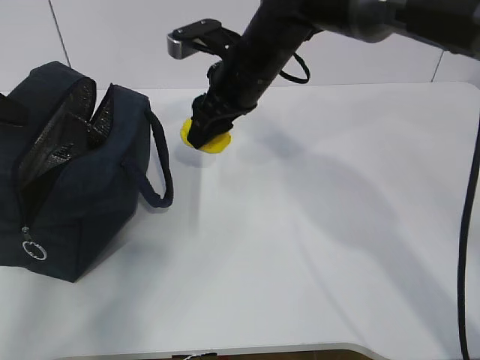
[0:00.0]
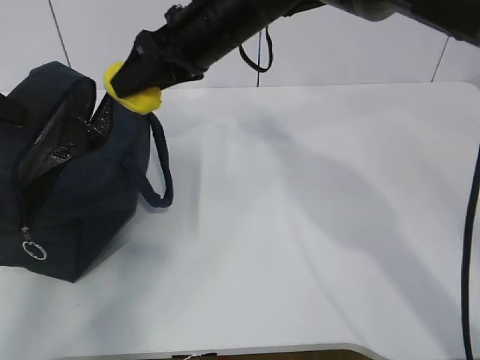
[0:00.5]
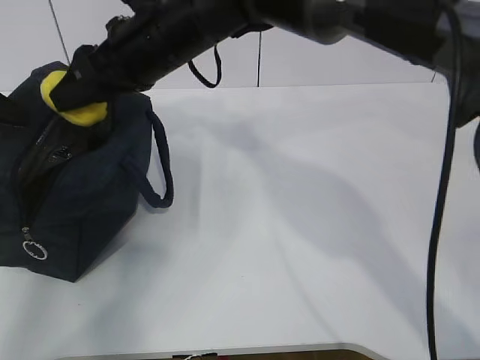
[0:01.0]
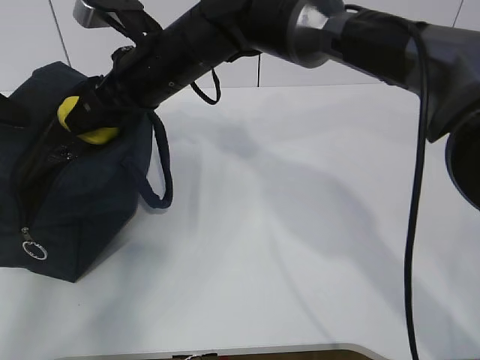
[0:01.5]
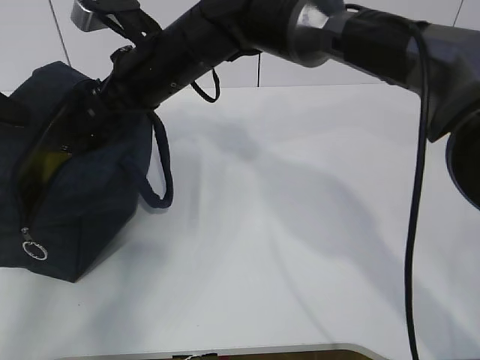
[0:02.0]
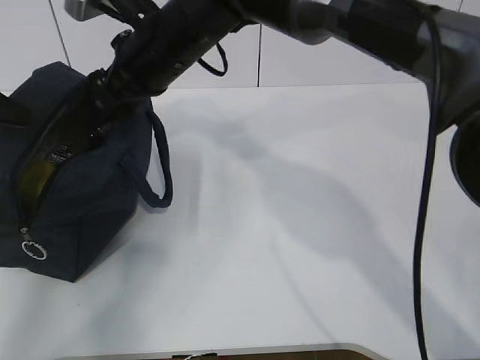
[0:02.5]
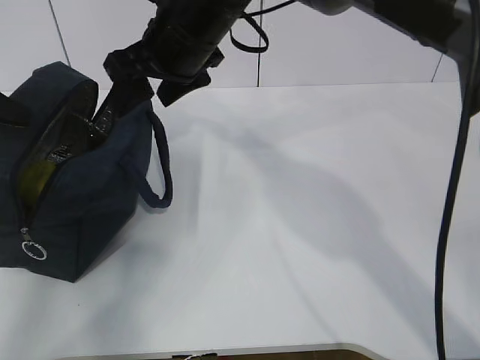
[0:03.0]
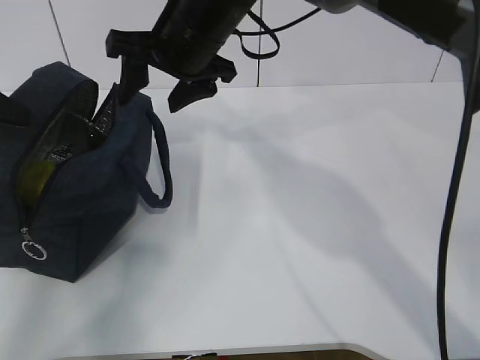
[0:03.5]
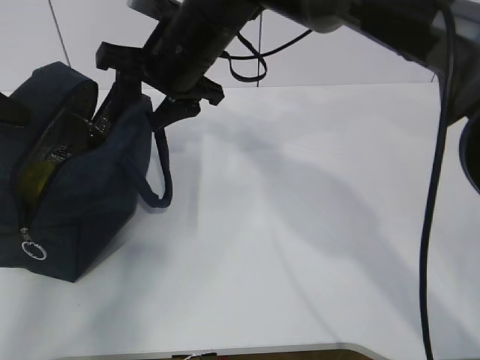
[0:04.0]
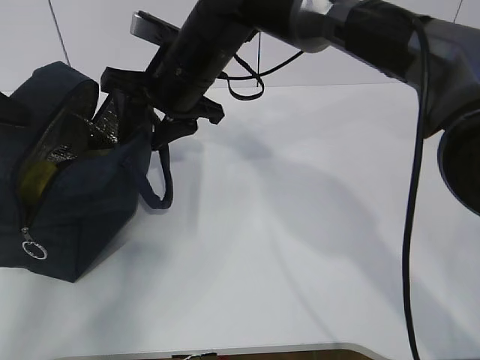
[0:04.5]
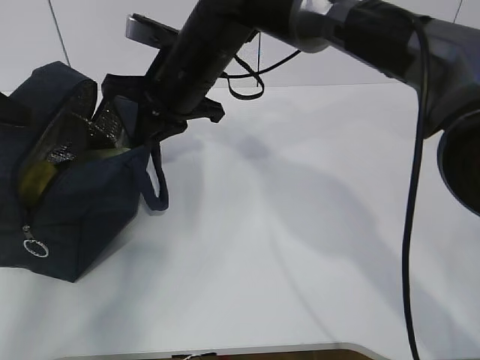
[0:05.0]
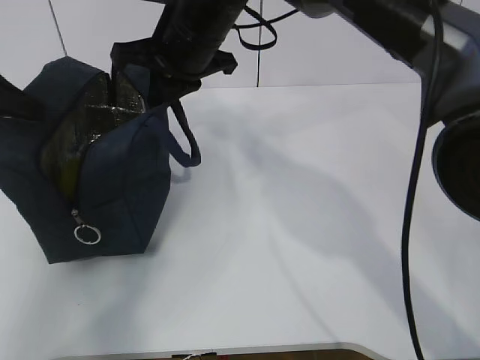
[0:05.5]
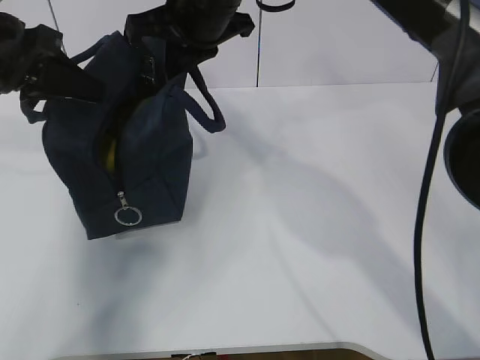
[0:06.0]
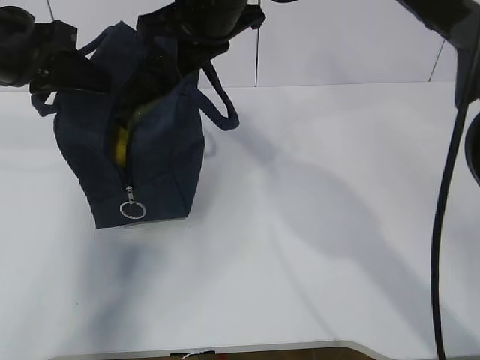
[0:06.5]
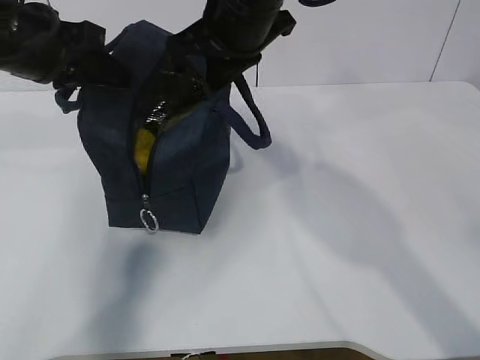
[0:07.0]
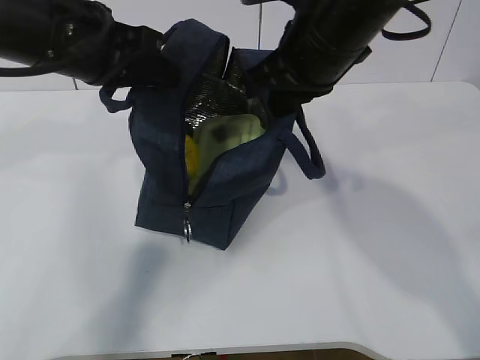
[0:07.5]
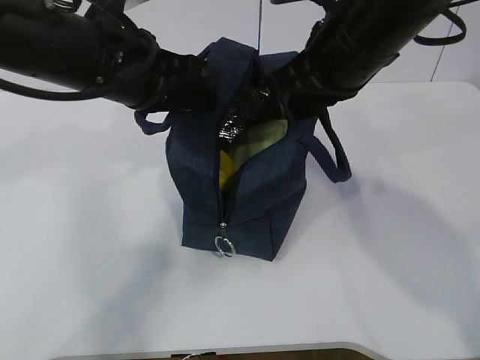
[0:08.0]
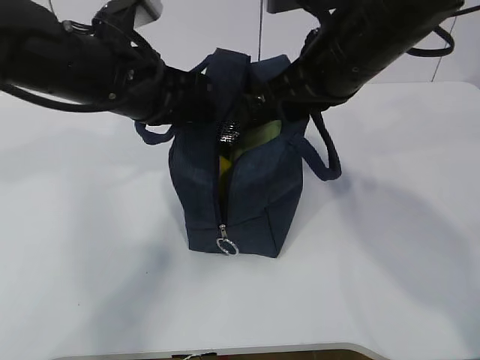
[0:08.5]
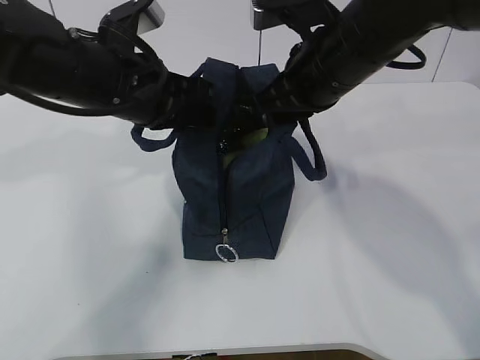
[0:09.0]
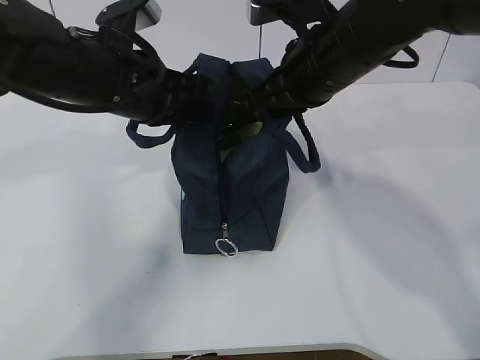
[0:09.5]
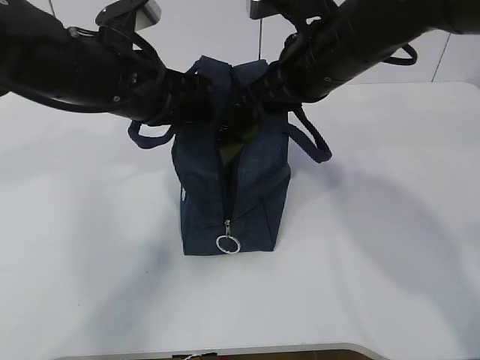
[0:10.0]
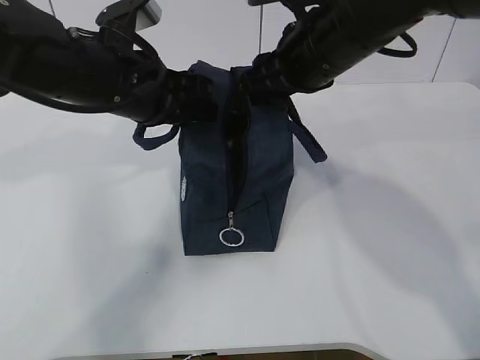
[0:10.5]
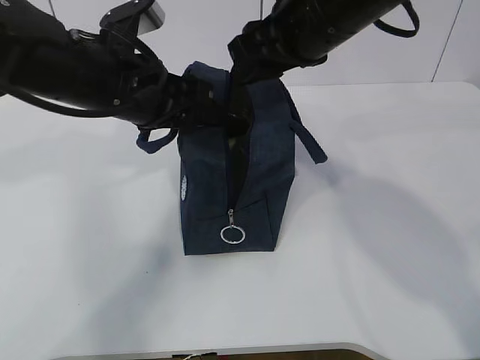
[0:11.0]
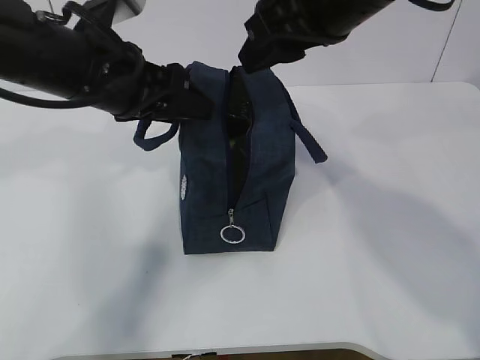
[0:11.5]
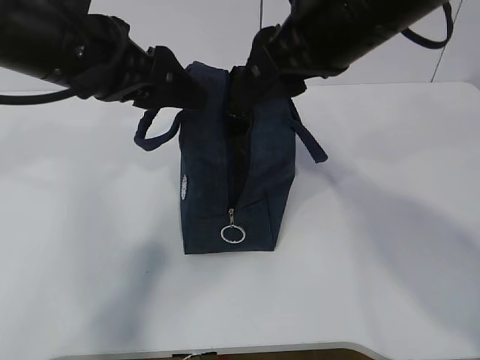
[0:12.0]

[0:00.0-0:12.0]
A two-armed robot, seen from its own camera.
Step, 0.0 to 2.0 s: Move the lunch bag to the right.
0.0 to 2.0 s: The right gripper heads to the left, covering some 10 cm.
4.0 to 6.0 s: The right gripper changes place by roughly 5 cm, and closes up. The left gripper is displaced to the right by some 10 cm.
6.0 to 8.0 s: The right gripper is displaced to the right and backward by approximately 15 cm, while the left gripper moves to the right, some 15 cm.
8.0 to 10.0 s: The grippers stay close to where they were, moving slightly.
10.0 to 12.0 s: The left gripper changes place by some 5 cm, and opens its fingers; the right gripper is displaced upward and backward by some 10 cm, and opens up.

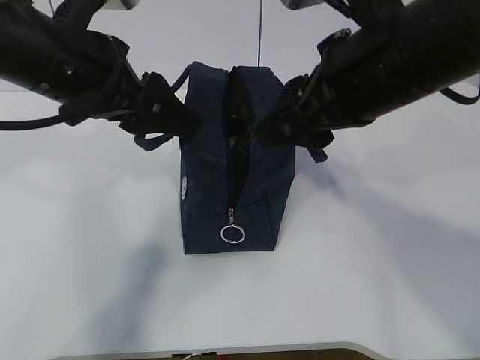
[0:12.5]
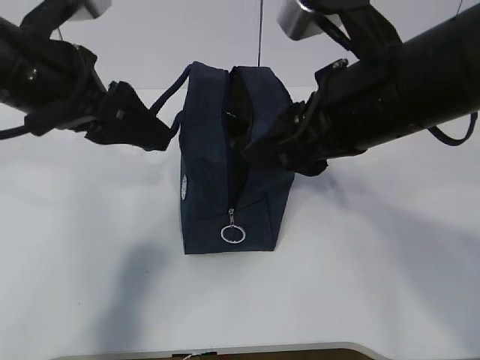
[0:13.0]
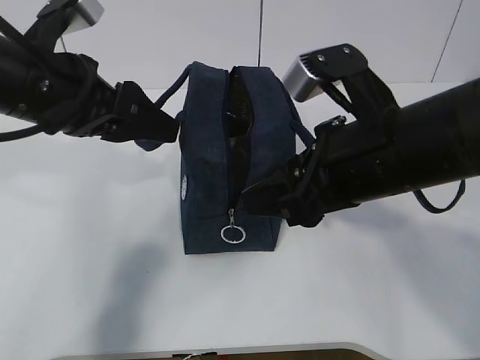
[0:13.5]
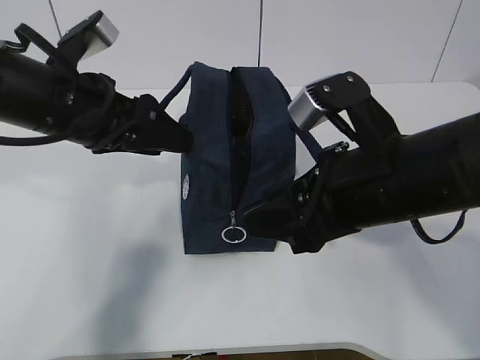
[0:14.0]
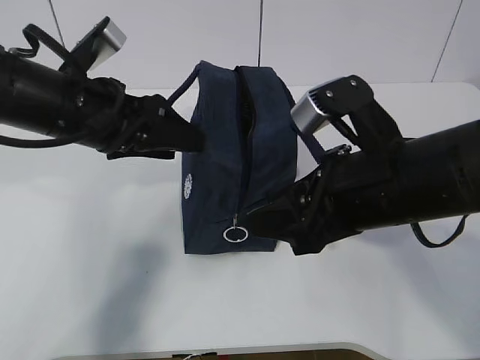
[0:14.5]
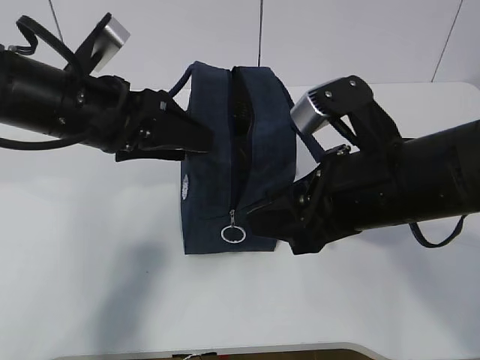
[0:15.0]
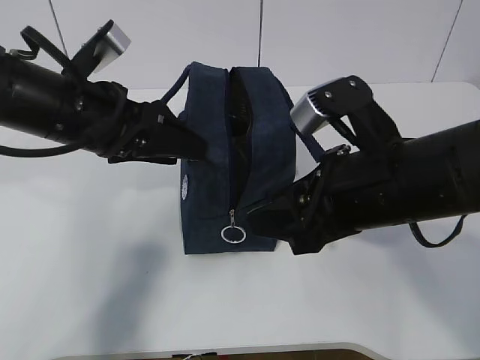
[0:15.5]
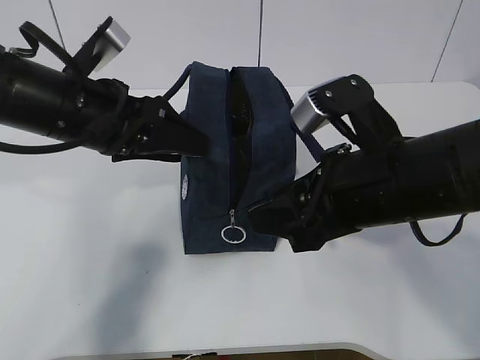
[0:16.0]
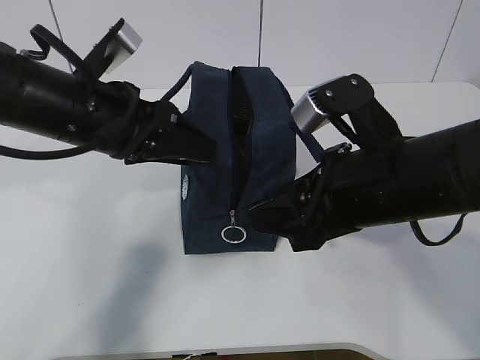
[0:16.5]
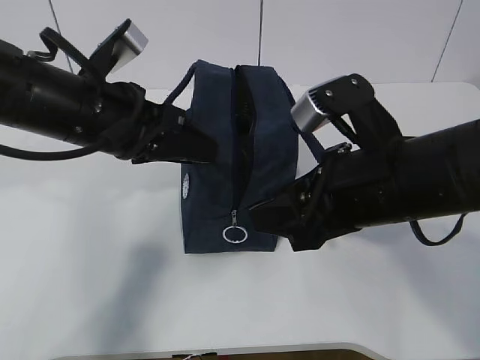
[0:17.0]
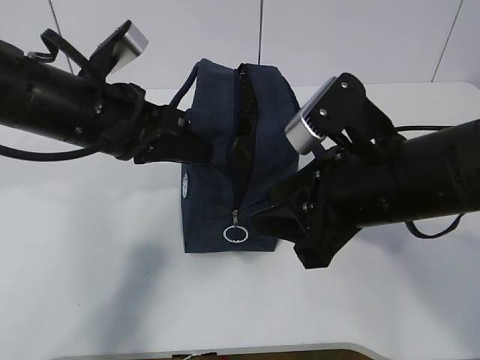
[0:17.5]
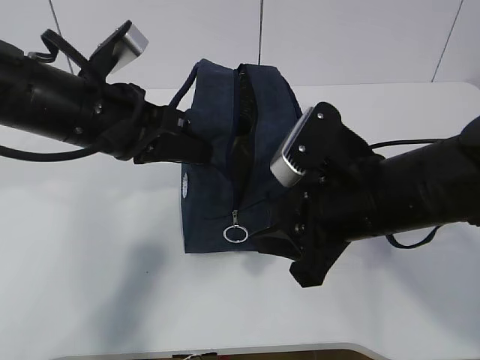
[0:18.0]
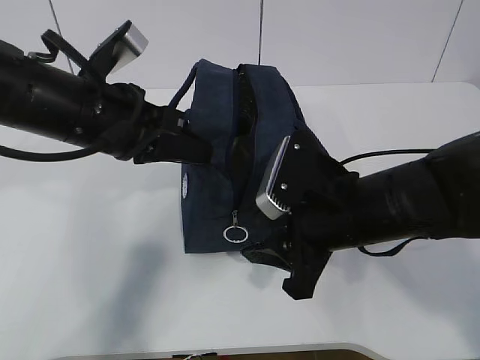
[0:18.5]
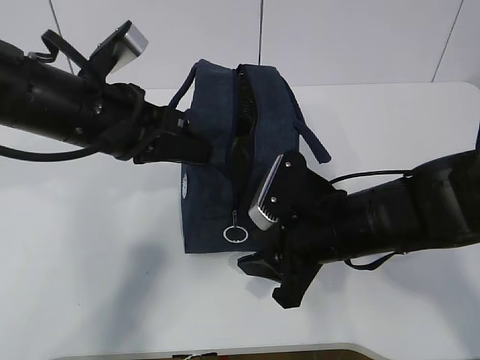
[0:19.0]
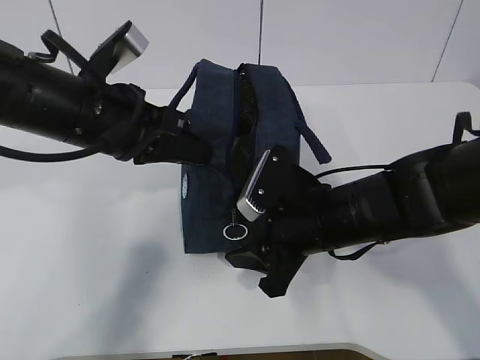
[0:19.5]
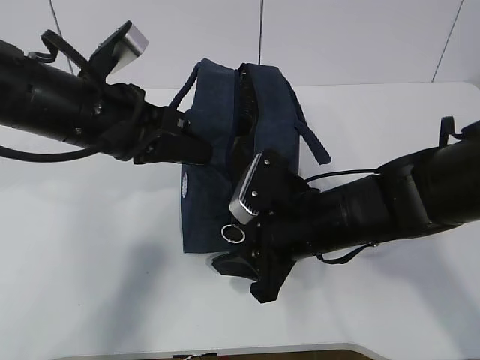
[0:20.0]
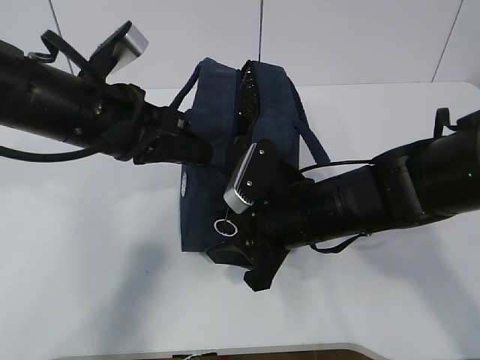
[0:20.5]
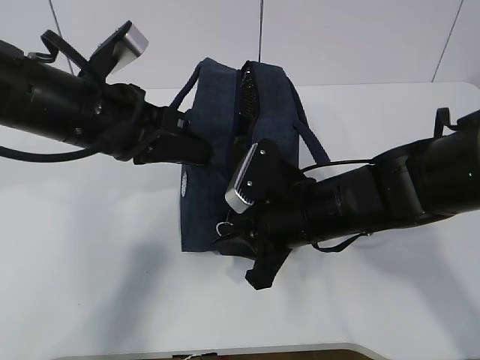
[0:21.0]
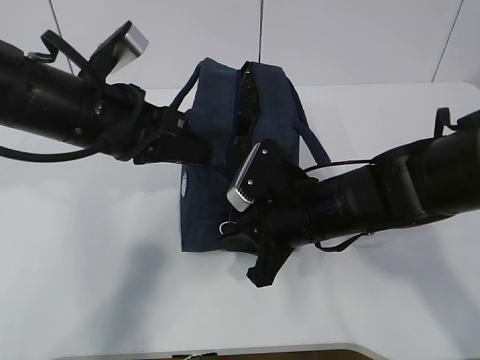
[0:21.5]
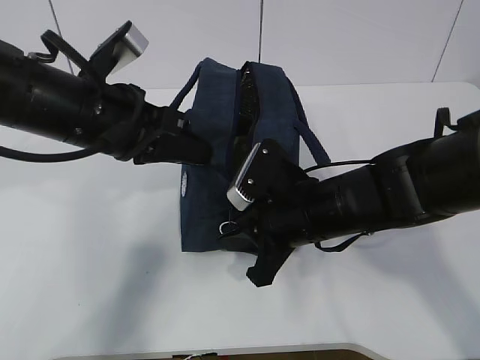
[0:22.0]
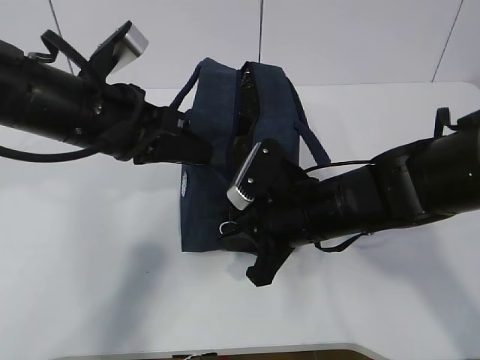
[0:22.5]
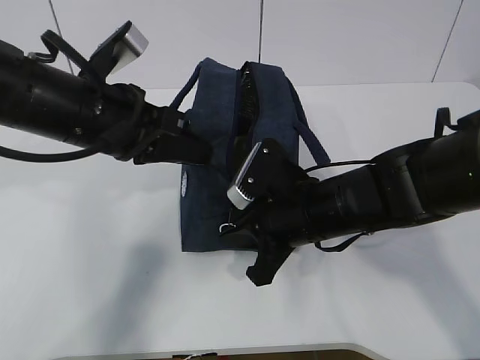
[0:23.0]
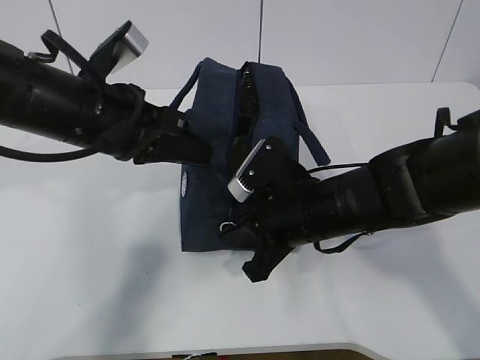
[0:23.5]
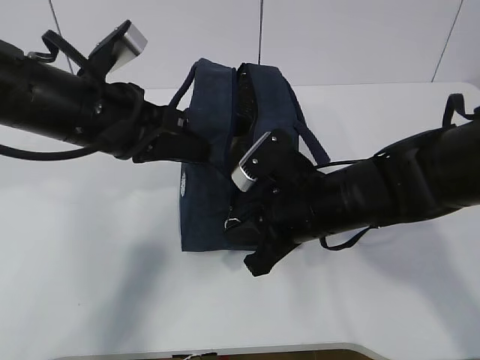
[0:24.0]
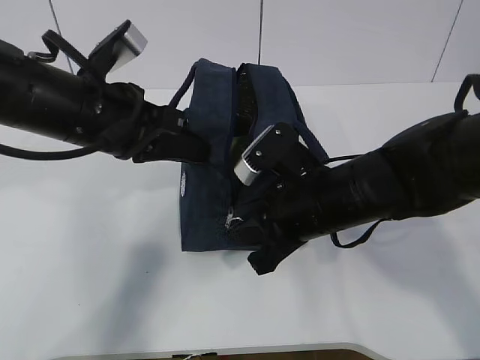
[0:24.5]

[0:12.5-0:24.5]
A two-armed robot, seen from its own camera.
Step, 12.5 to 24.5 s: Pull the zipper with your right hand.
12.5 to 14.5 s: The left gripper changes place by some 5 cm, while the right gripper goes some 10 cm downward.
14.5 to 16.5 s: The grippers make only small movements.
16.5 to 18.5 s: The left gripper closes up, while the right gripper is displaced downward by about 5 cm.
18.5 to 20.5 s: The right gripper changes place by some 5 cm.
20.5 to 22.5 s: The right gripper closes.
22.5 to 24.5 s: The grippers move only a little.

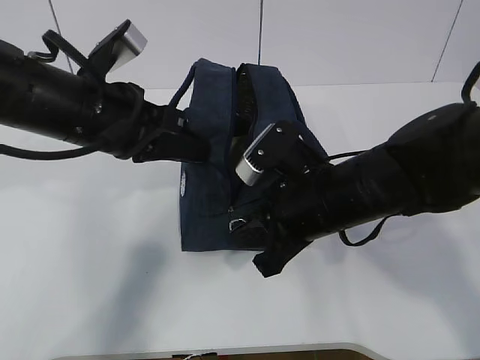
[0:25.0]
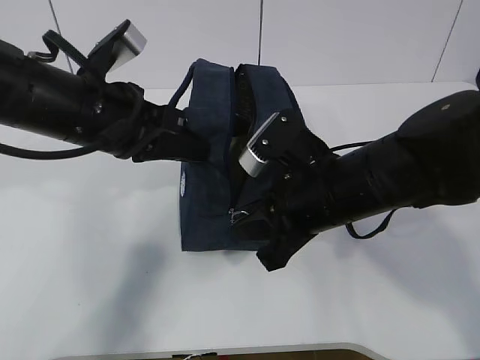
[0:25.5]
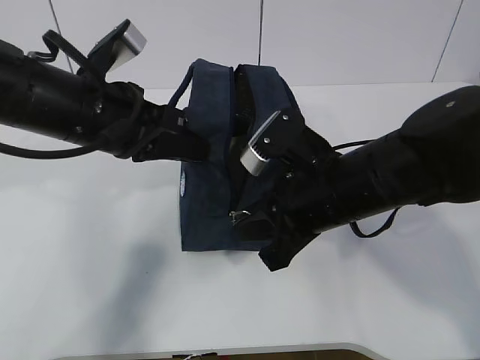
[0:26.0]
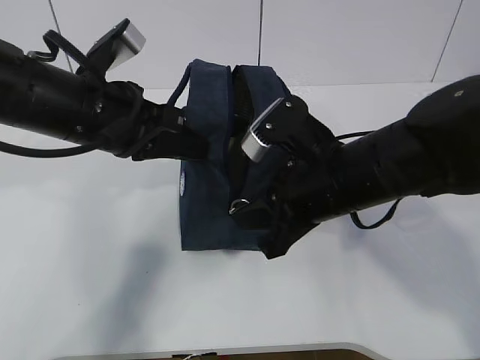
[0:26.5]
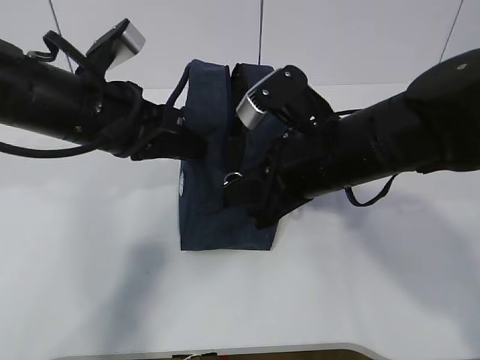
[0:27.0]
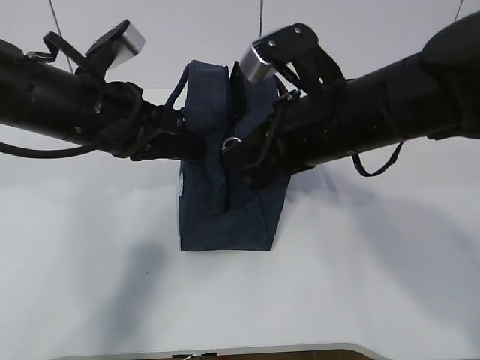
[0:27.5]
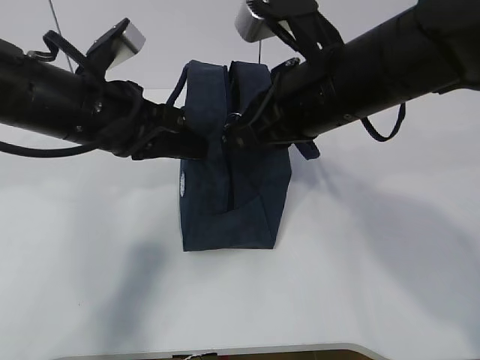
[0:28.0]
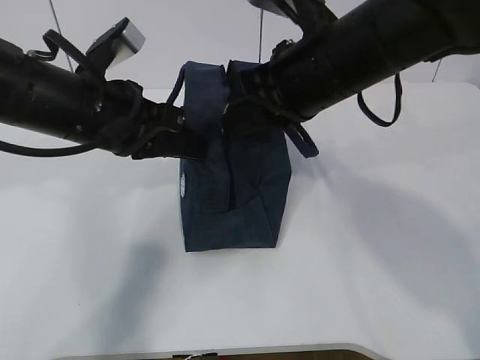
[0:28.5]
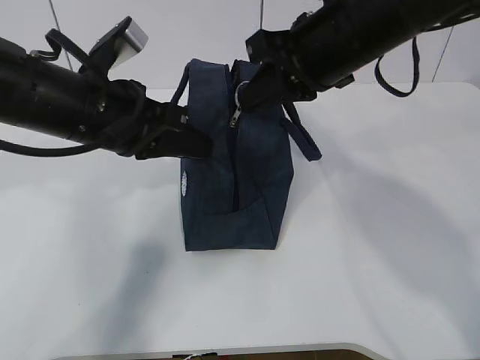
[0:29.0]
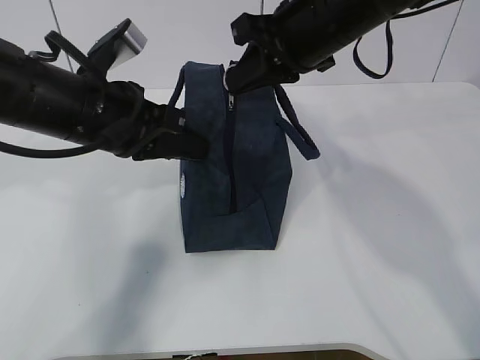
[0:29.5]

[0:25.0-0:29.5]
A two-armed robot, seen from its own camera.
25.0 to 27.0 s: There are only small adjustments of the grippers.
27.0 to 29.5 s: The right gripper travels upward and forward by roughly 15 cm.
